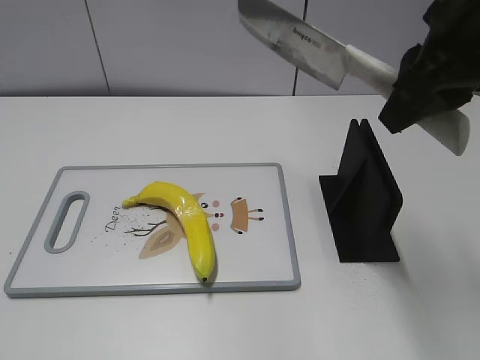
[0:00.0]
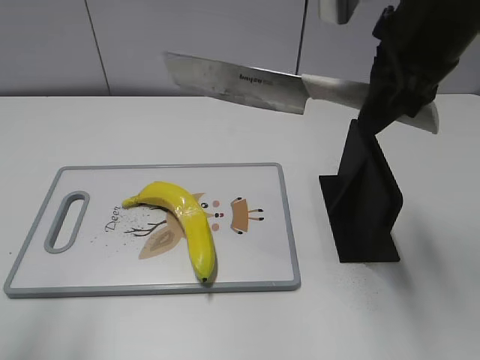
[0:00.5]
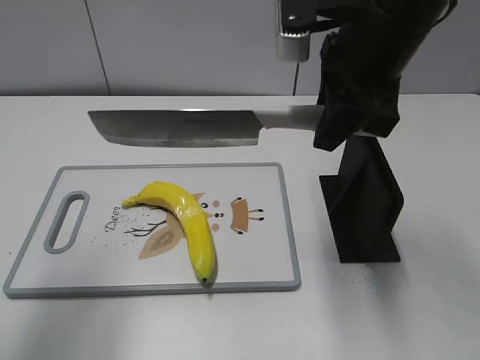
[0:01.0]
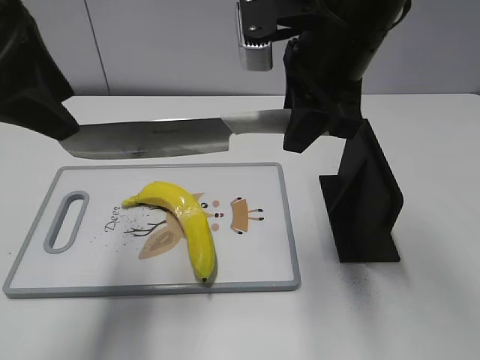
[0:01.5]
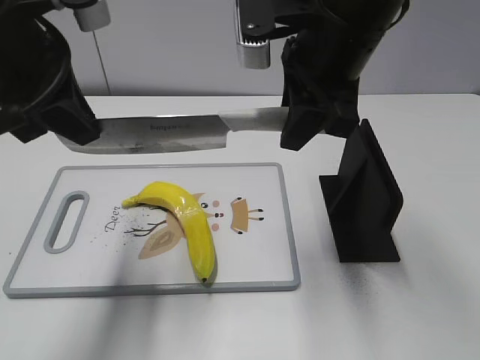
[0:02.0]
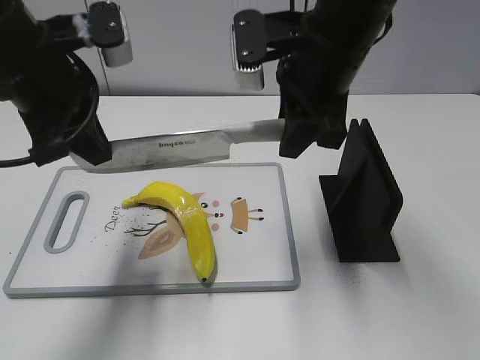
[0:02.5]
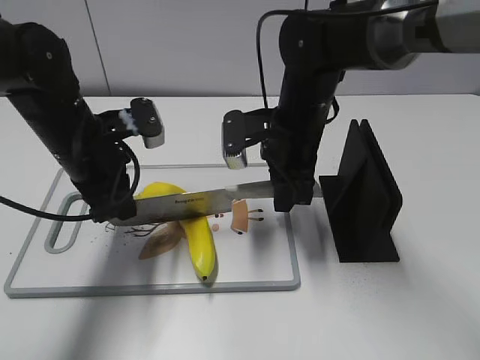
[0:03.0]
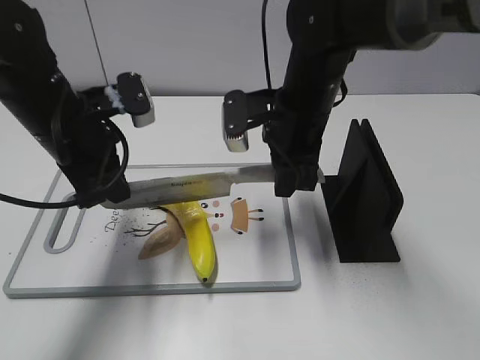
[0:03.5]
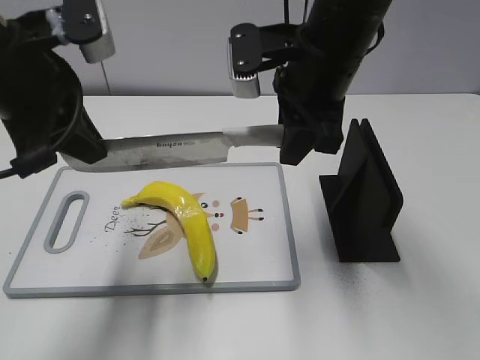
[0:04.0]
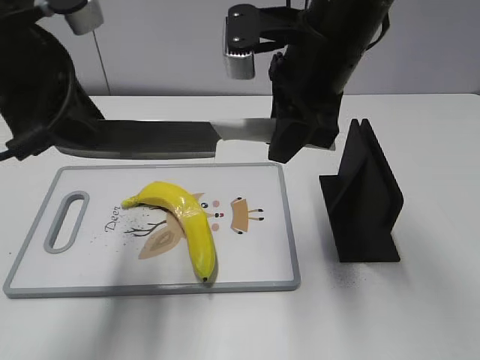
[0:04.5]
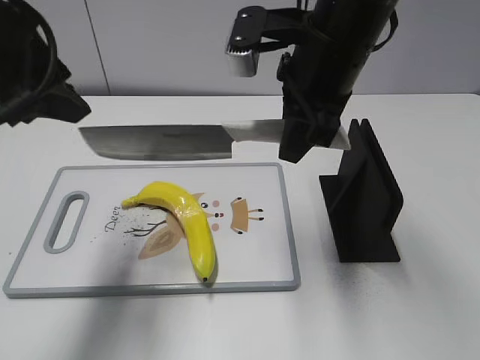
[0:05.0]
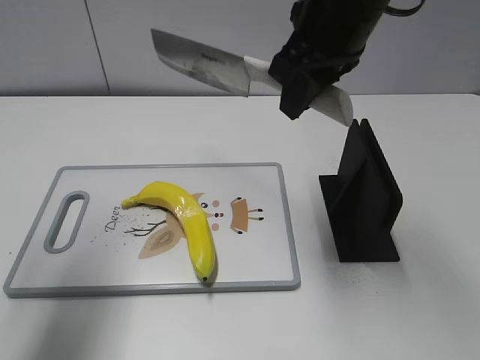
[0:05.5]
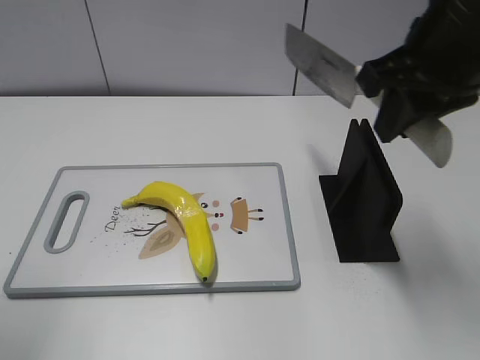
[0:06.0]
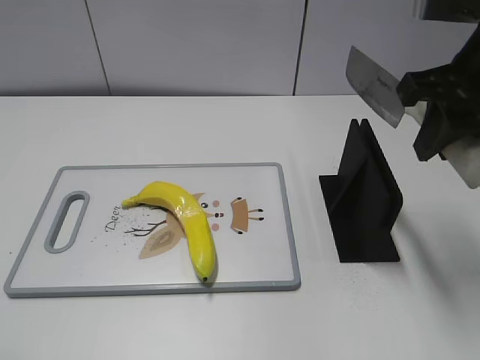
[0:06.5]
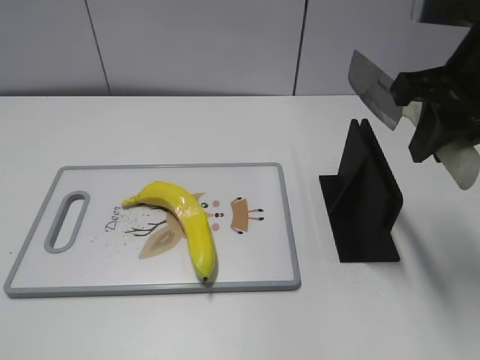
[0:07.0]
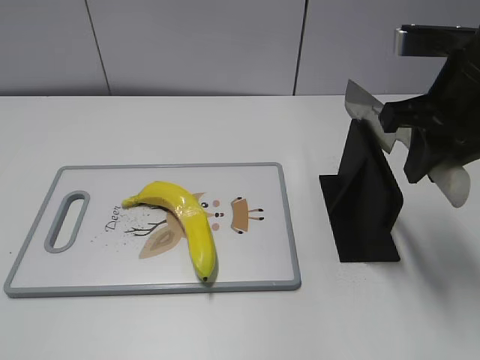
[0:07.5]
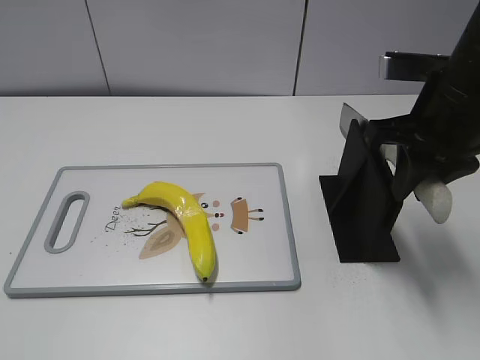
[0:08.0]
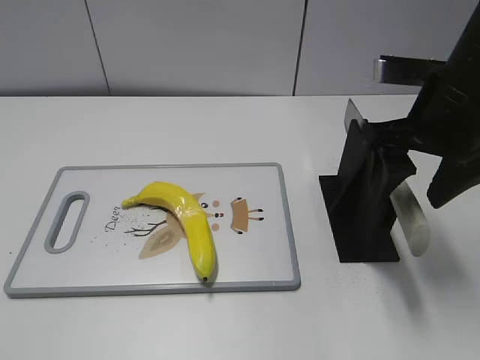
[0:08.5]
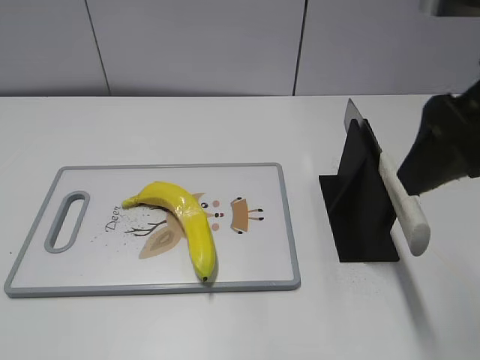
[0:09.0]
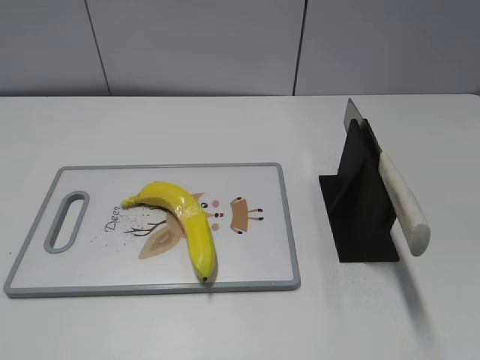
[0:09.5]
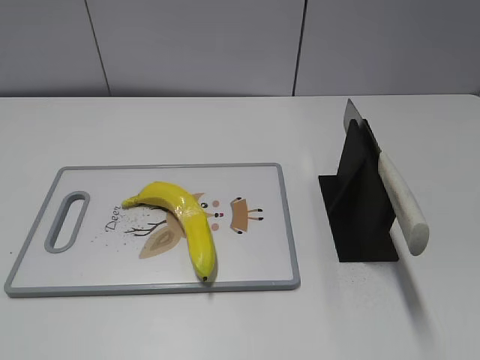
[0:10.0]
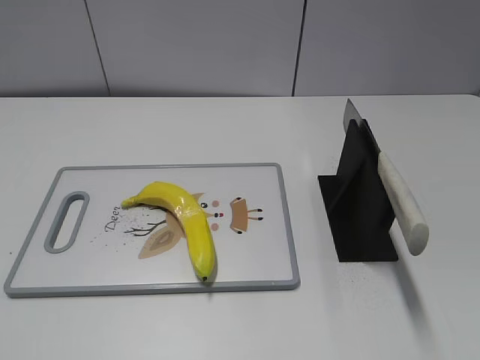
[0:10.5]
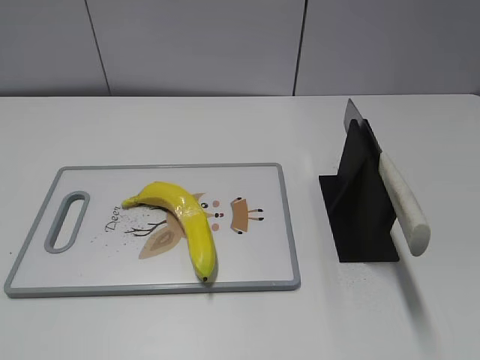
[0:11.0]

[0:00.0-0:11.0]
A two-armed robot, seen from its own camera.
Task of the whole recording: cut plastic banana.
Step, 0:00.0 to 0:04.5: Lift the knife with your right hand.
Step, 0:05.5 to 0:06.0: Lift the knife with your right hand.
Step, 0:06.5 to 0:11.0: Place the knife on the storage rack with your right hand.
0:00.0 to 0:02.0: The right gripper travels to the left and forward by approximately 10 cm. The left gripper moves forward and to the right, approximately 25 cm, and closes up.
0:02.0 to 0:03.5: Both grippers travel together downward, roughly 10 cm.
0:03.5 to 0:05.5: The left gripper travels upward, to the left and backward by approximately 15 cm, and opens. Meanwhile the right gripper goes roughly 15 cm upward.
0:05.5 to 0:07.5: The right gripper shifts some 10 cm to the right and downward. The left gripper is displaced backward by roughly 25 cm.
0:07.5 to 0:09.0: The right gripper heads backward and upward, covering about 10 cm, and opens its fingers.
0:09.0 to 0:11.0: The right gripper shifts some 20 cm backward and to the right.

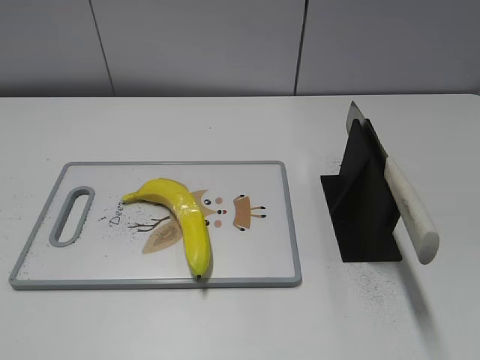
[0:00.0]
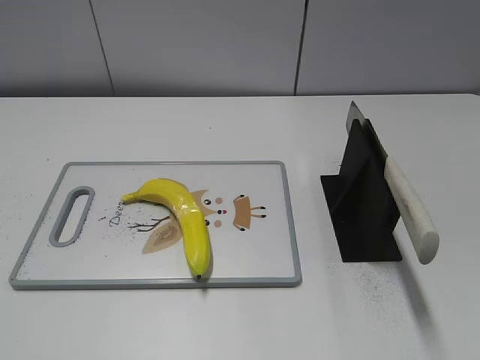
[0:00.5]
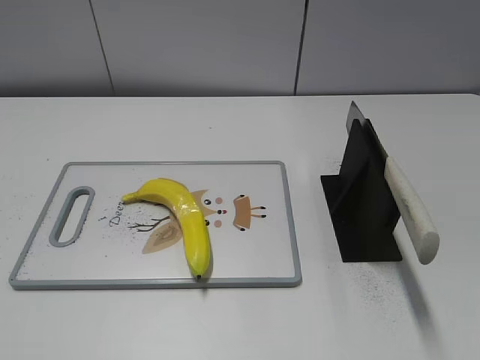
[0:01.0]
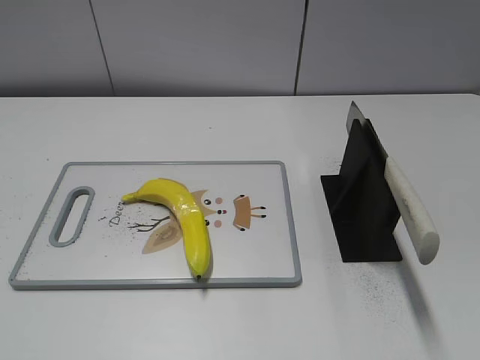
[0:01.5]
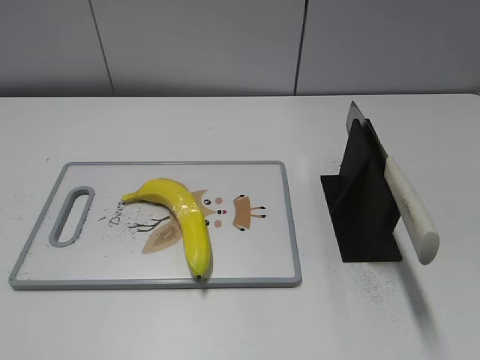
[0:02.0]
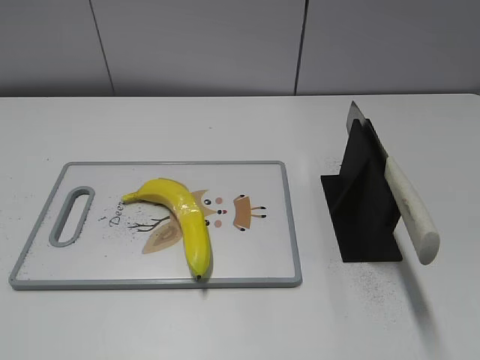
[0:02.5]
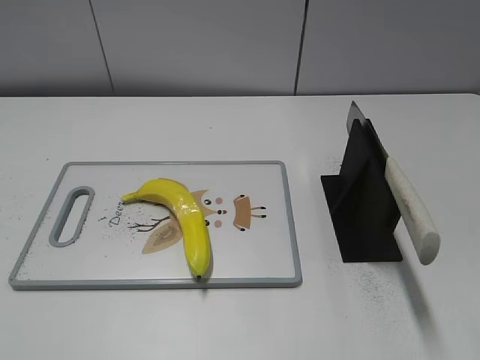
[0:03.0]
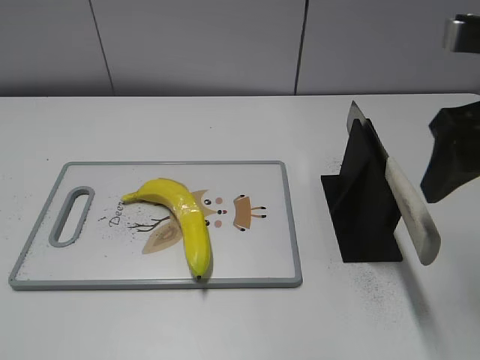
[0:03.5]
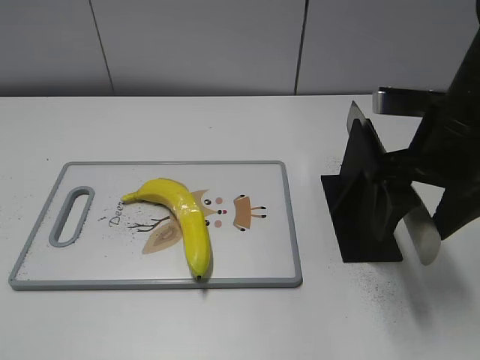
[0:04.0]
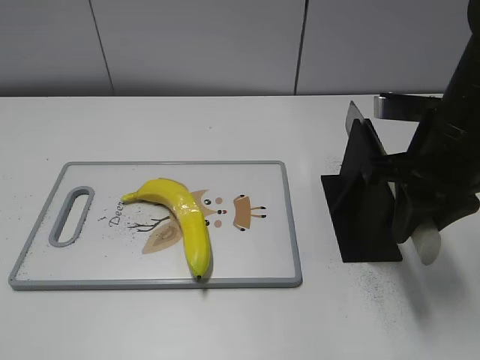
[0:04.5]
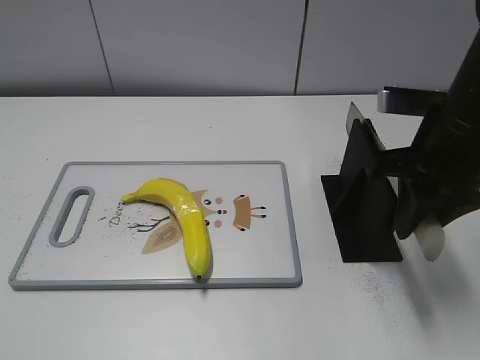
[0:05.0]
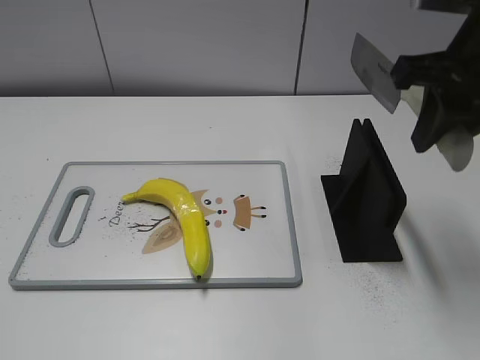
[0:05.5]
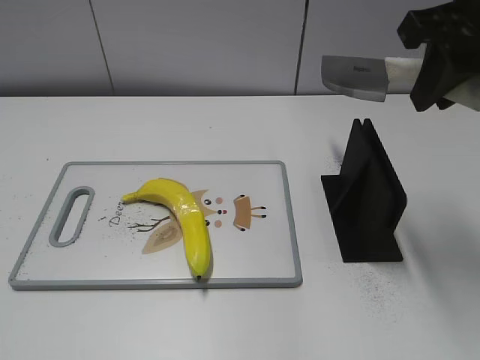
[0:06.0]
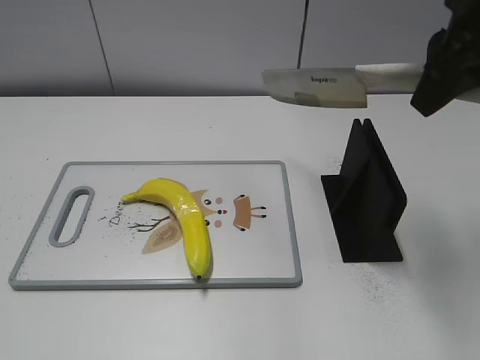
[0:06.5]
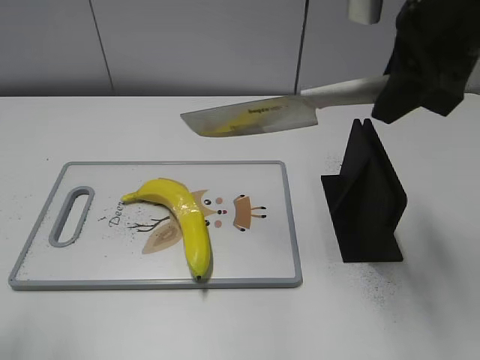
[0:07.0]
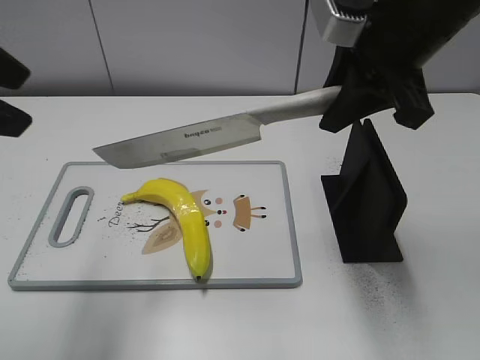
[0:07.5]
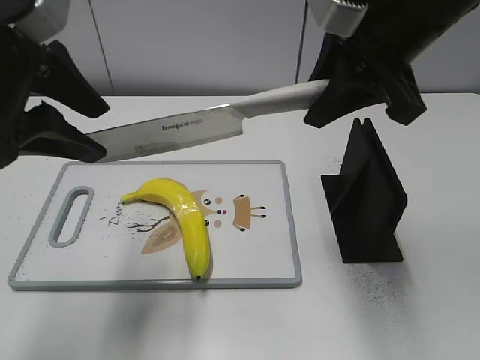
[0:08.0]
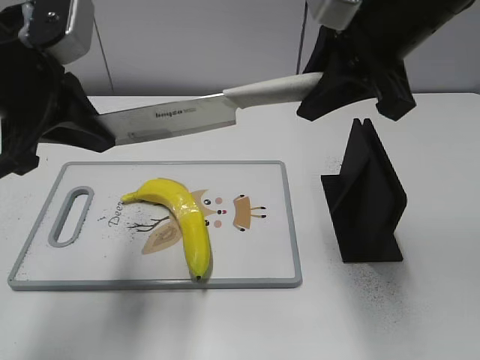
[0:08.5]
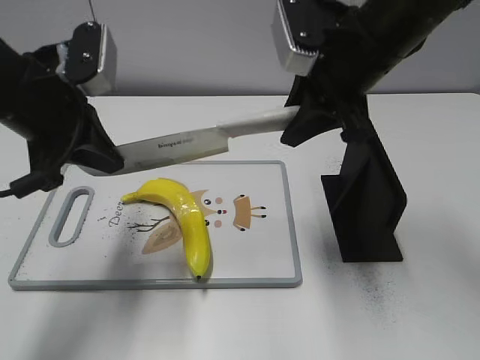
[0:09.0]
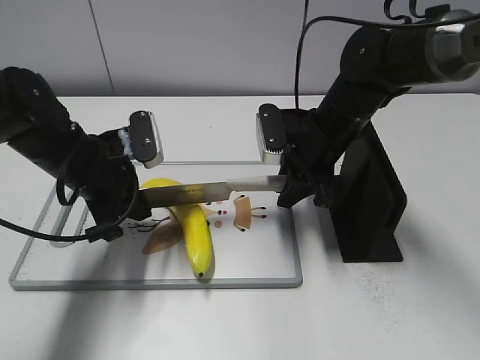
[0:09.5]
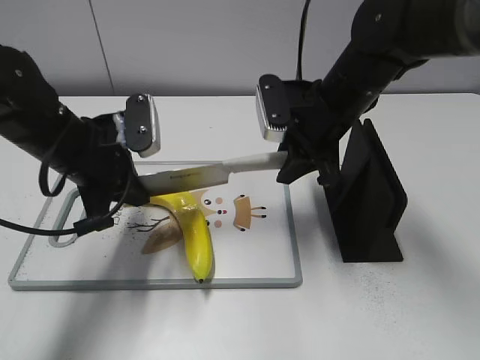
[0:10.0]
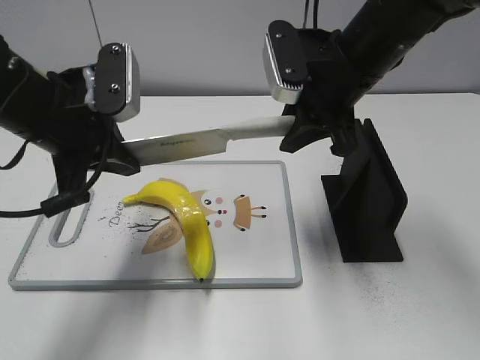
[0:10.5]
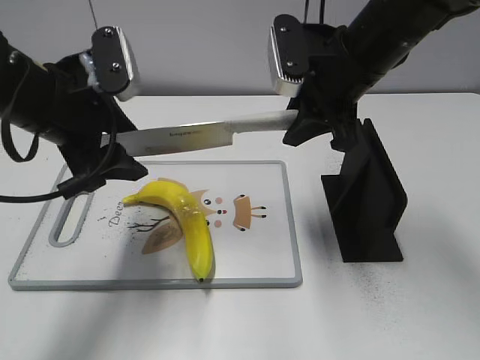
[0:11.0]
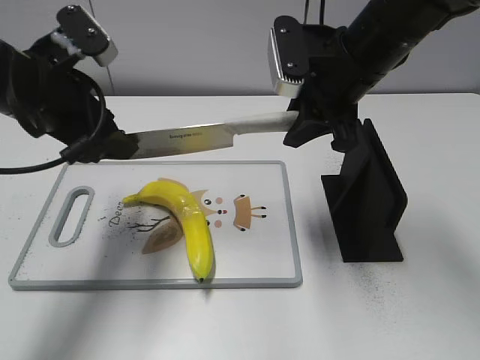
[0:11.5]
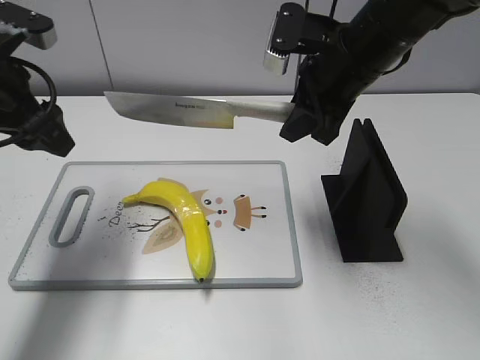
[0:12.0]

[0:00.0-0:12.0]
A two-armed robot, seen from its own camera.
Task of the whole recording: cut plastic banana.
Step, 0:00.0 to 0:05.5: Grab the knife handle with your right hand.
Step, 0:06.0 to 0:10.5: Lift the knife with your right hand.
0:02.0 to 0:04.0: The right gripper goes approximately 30 cm forward and to the left.
0:04.0 to 0:06.0: The right gripper is displaced upward by some 10 cm, and closes its fingers.
0:06.0 to 0:08.0: The right gripper heads to the left, covering about 5 cm. The left gripper is displaced forward and to the right by some 30 cm.
0:08.0 to 0:10.0: The left gripper is displaced downward by approximately 15 cm, and closes up, while the right gripper travels downward and forward by roughly 15 cm.
0:10.0 to 0:12.0: The left gripper travels upward and to the left by about 10 cm, and opens its fingers; the right gripper travels upward by about 5 cm.

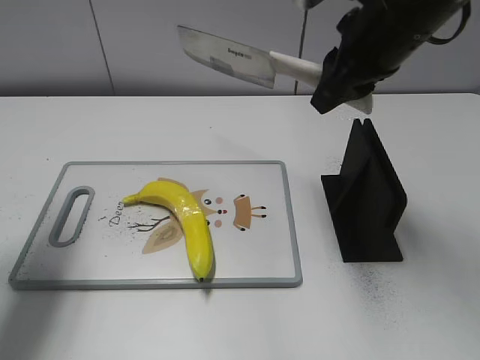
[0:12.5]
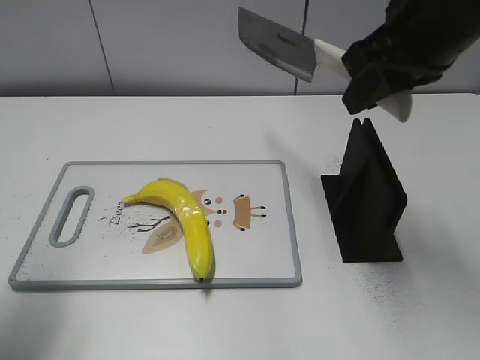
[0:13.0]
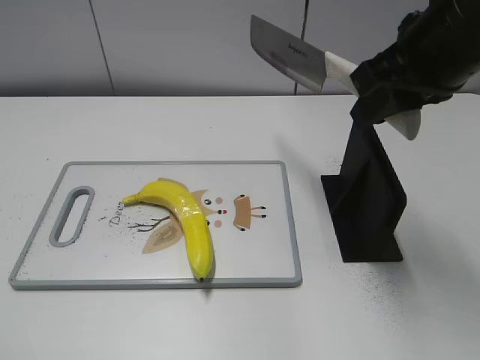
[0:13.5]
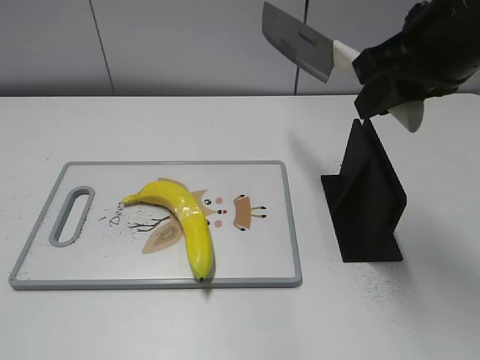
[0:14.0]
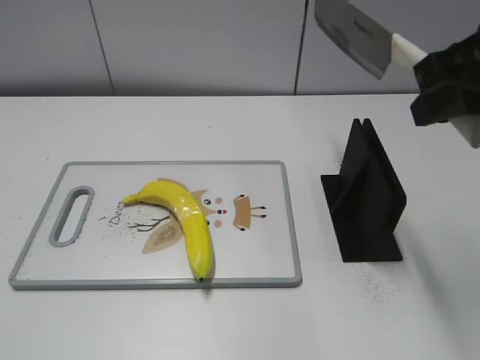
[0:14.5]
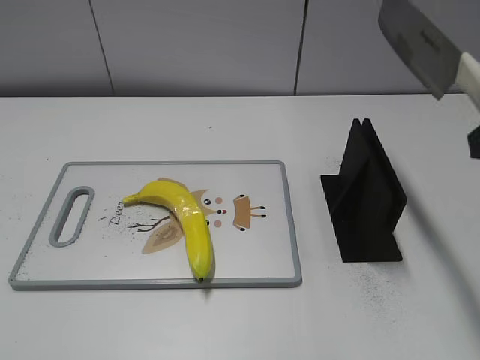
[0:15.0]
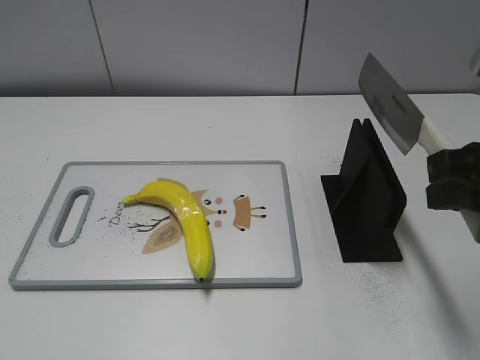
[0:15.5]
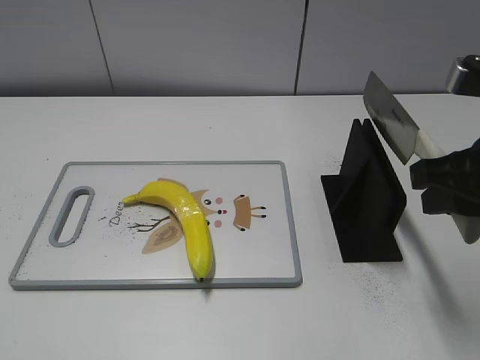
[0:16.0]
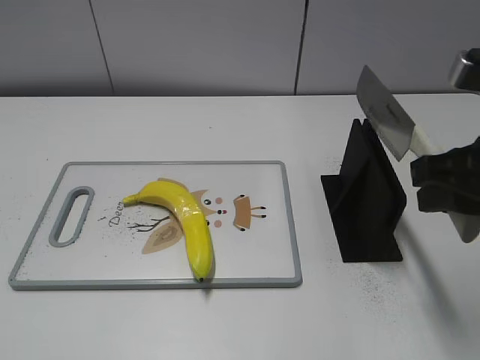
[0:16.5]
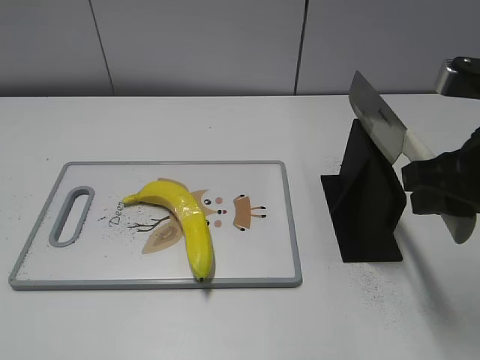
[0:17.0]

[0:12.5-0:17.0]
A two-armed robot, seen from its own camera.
Task of the whole recording: cut plastic banana.
Step, 0:12.5 to 0:13.5: Lift the knife with your right hand.
0:12.5 to 0:14.5: The right gripper moves backward and to the right, some 10 cm. The left gripper shifts roughly 25 cm backward.
0:14.5 to 0:17.0: The right gripper heads downward, covering roughly 10 cm.
